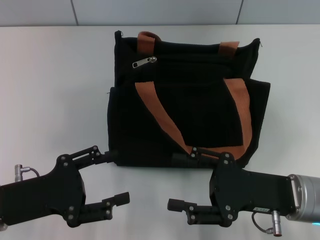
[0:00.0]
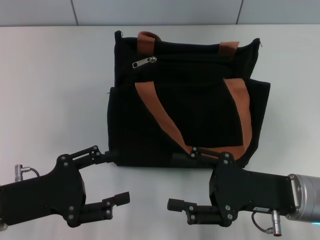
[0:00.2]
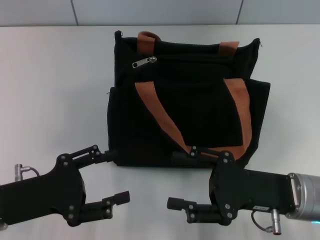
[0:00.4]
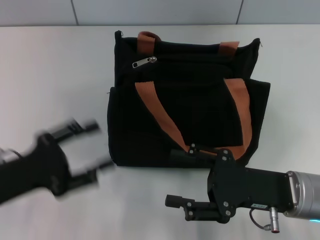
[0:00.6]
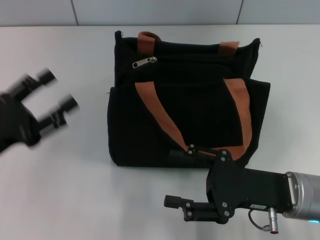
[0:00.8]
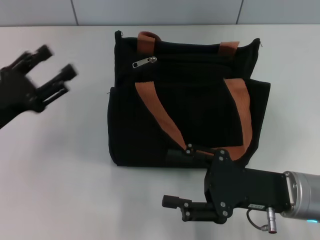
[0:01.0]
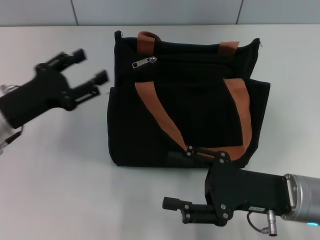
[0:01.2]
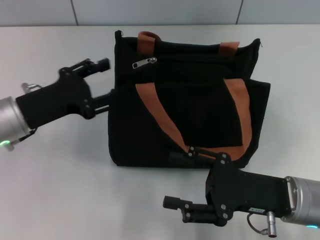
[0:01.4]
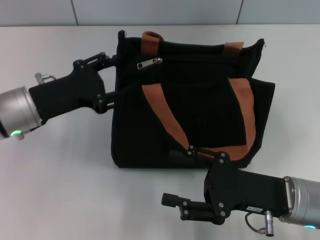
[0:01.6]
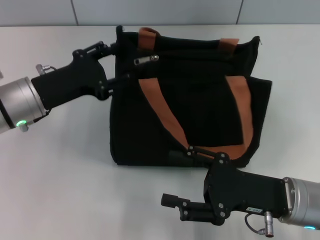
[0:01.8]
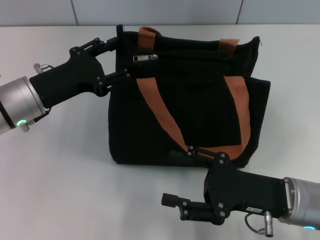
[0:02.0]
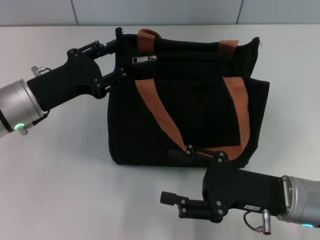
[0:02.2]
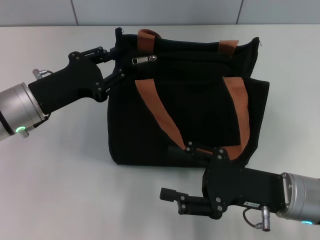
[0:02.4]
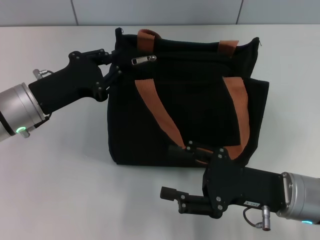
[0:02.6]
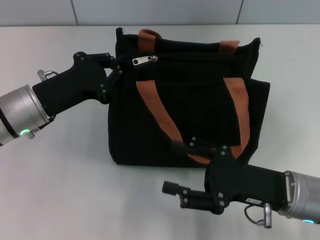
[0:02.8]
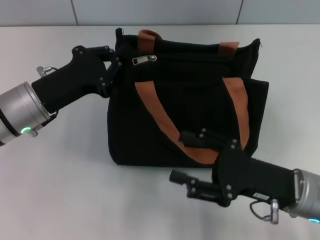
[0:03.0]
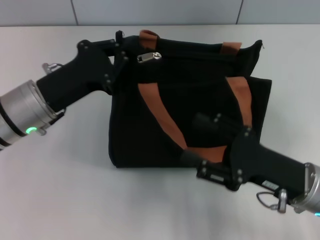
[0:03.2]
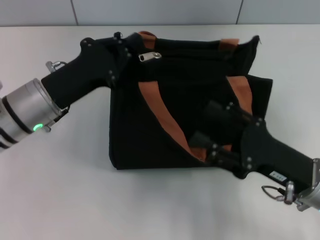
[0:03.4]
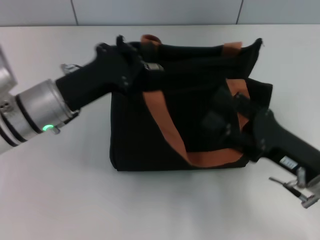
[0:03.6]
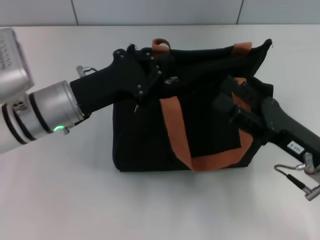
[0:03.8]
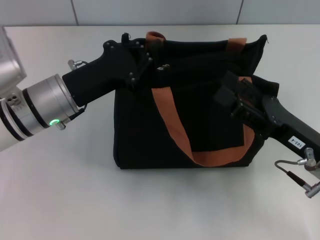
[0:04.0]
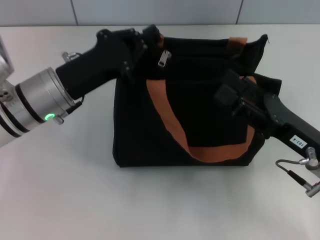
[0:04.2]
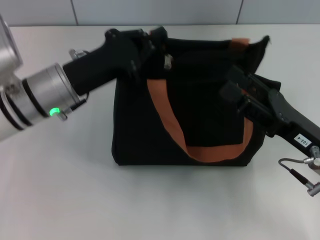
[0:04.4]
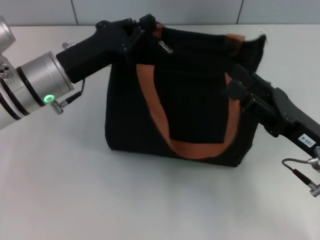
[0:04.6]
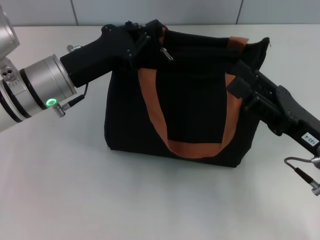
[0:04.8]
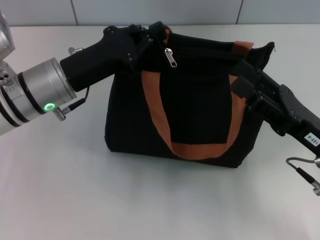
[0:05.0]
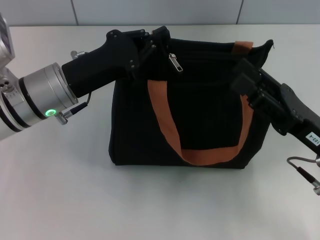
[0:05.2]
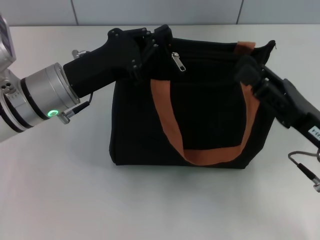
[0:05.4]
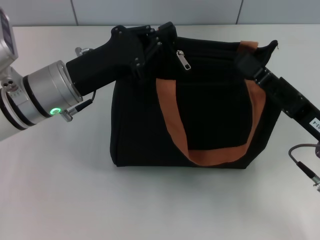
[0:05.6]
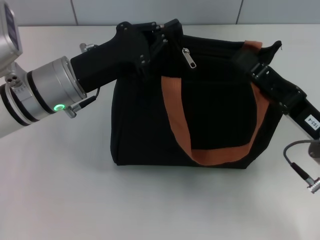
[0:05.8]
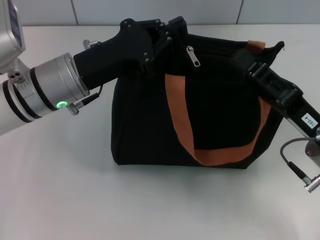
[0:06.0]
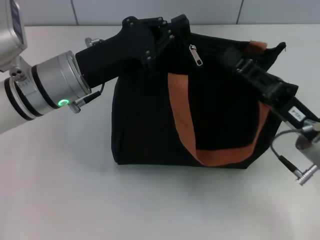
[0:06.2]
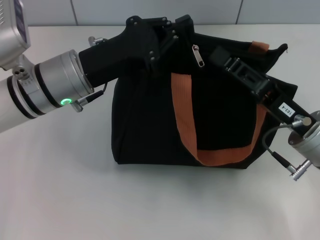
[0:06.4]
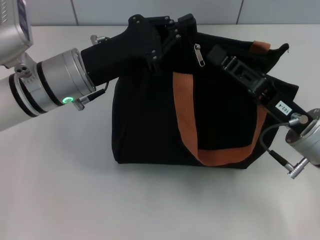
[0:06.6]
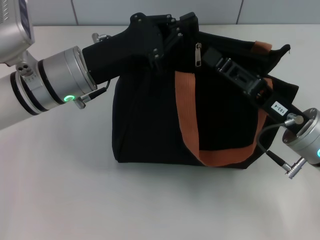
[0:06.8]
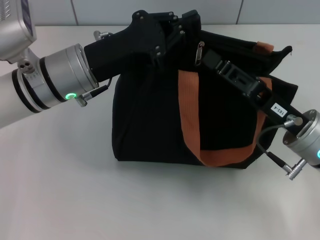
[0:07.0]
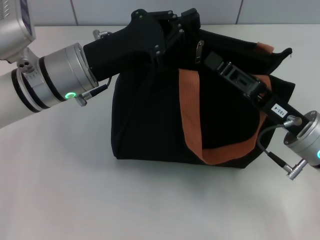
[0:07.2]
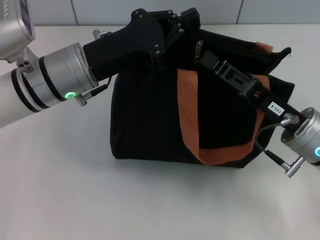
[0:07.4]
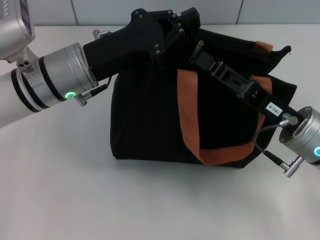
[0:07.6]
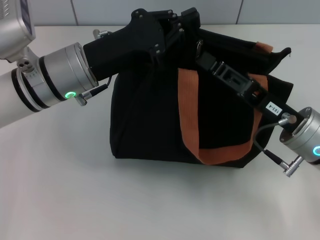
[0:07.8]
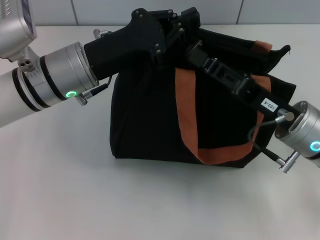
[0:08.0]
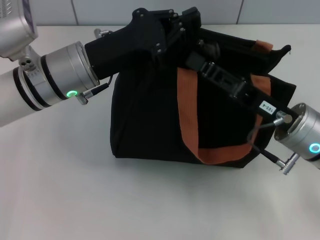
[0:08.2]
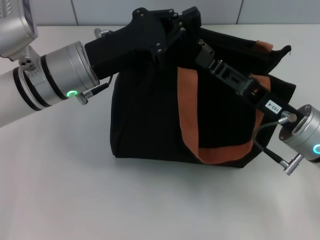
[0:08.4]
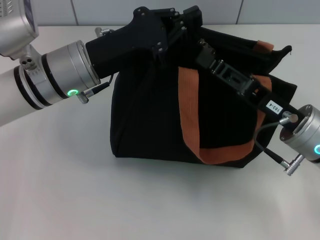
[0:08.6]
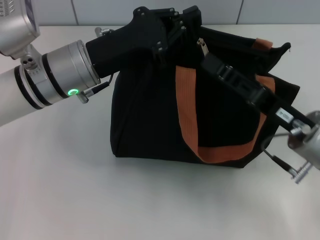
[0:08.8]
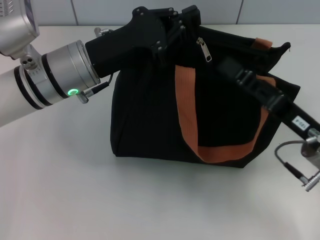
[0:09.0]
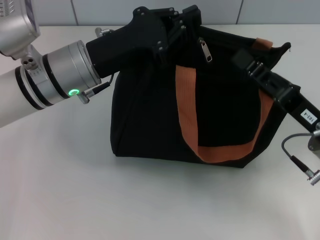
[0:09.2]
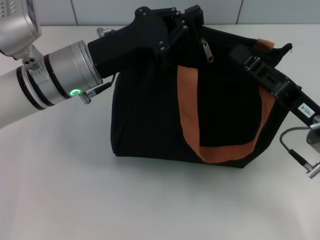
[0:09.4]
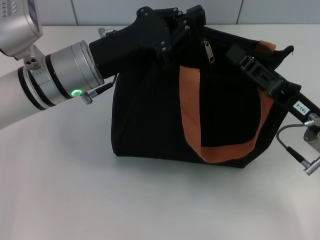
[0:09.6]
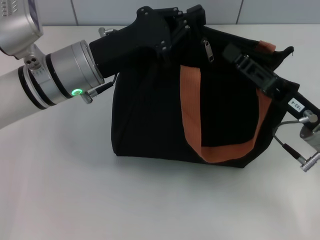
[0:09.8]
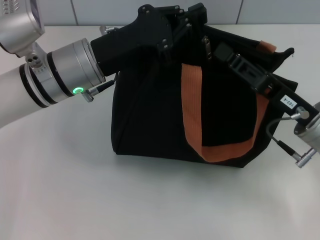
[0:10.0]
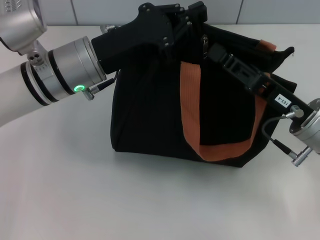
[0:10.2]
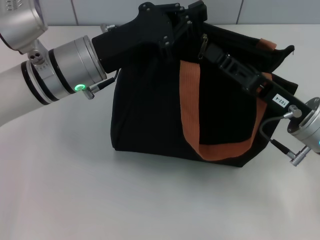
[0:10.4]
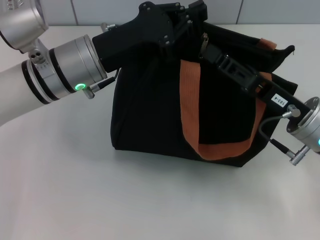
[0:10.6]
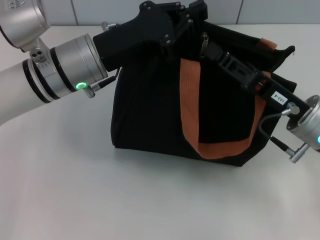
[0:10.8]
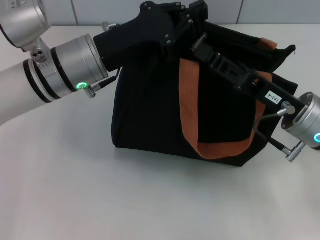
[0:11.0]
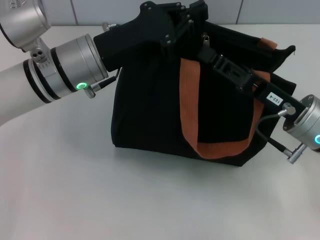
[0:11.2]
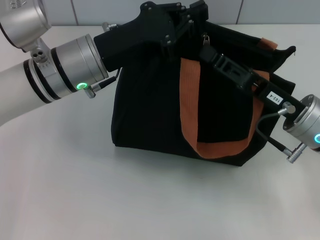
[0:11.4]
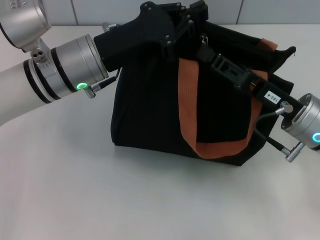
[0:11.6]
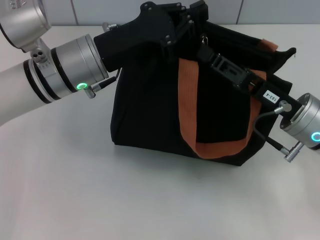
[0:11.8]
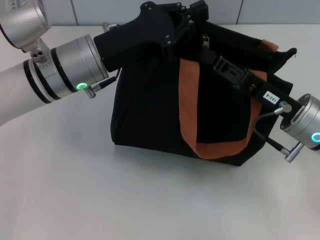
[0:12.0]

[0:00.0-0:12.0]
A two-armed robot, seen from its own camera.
0:00.0 to 0:01.6: The left gripper moves forward, about 10 cm.
0:01.6 to 0:03.0: The left gripper closes its fingers.
0:04.4 to 0:06.0: The right gripper closes up.
0:06.0 to 0:10.4: The grippers stay close to where they were, moving slightly.
0:10.4 to 0:12.0: Both grippers stay about where they are.

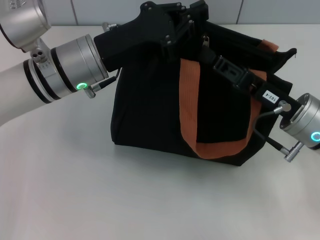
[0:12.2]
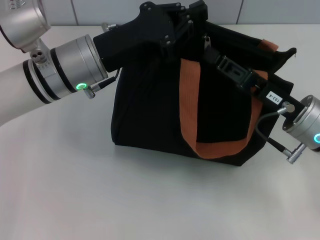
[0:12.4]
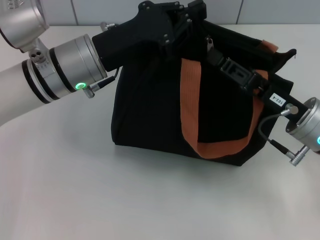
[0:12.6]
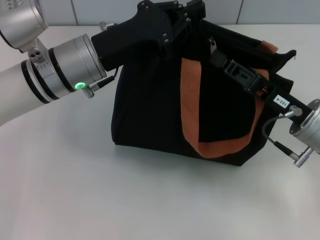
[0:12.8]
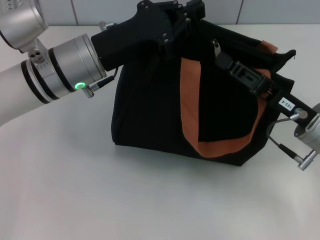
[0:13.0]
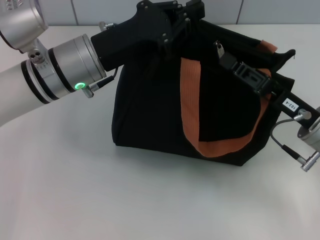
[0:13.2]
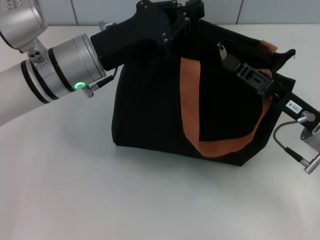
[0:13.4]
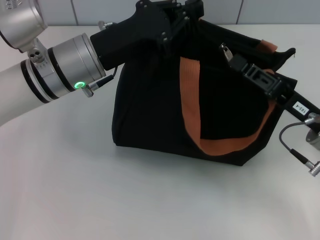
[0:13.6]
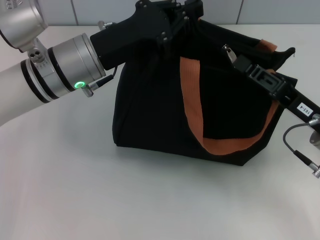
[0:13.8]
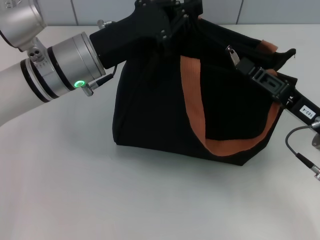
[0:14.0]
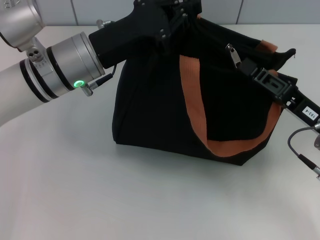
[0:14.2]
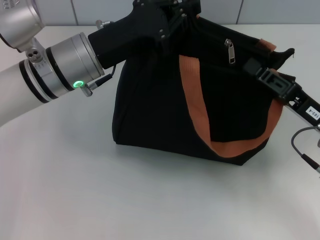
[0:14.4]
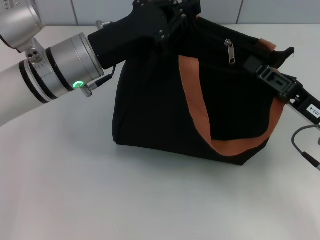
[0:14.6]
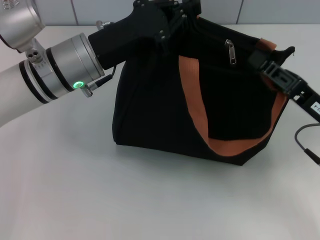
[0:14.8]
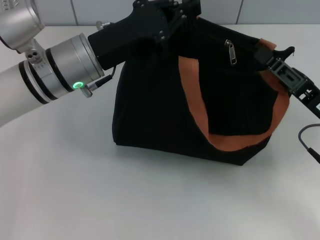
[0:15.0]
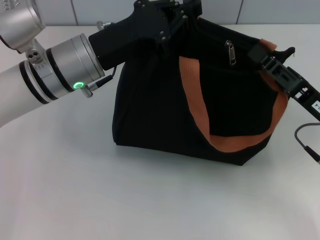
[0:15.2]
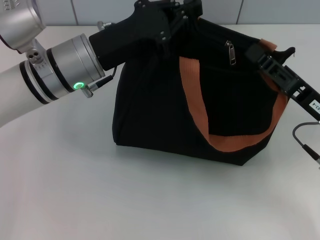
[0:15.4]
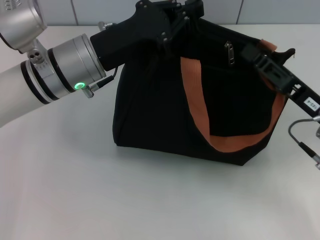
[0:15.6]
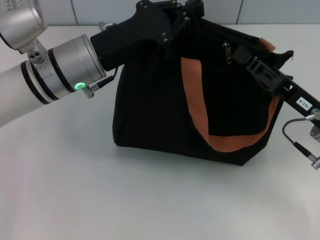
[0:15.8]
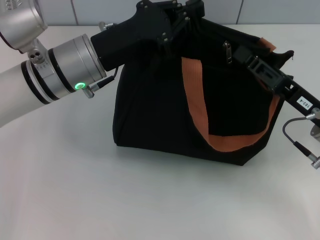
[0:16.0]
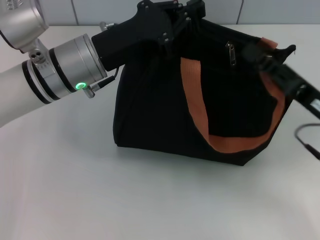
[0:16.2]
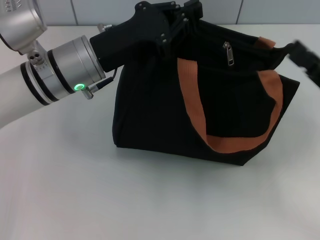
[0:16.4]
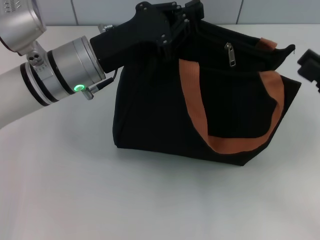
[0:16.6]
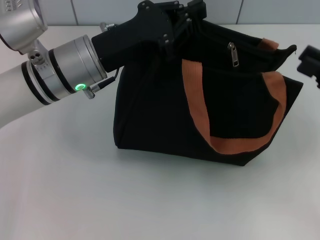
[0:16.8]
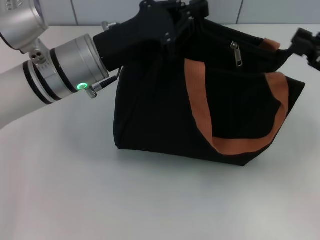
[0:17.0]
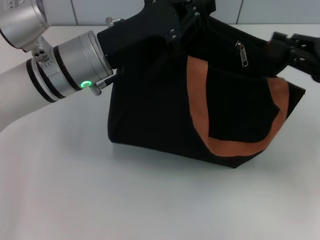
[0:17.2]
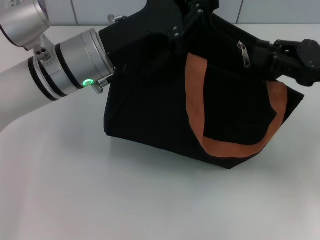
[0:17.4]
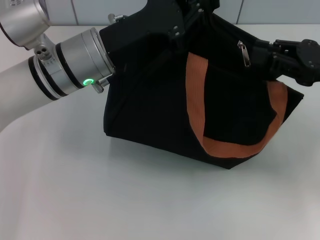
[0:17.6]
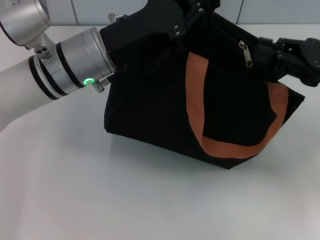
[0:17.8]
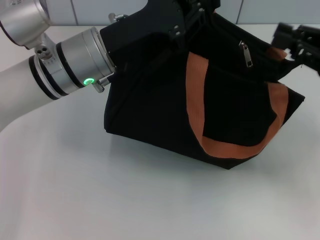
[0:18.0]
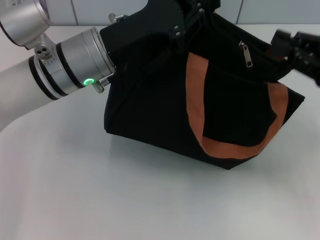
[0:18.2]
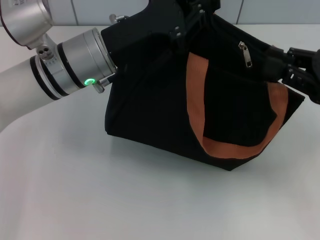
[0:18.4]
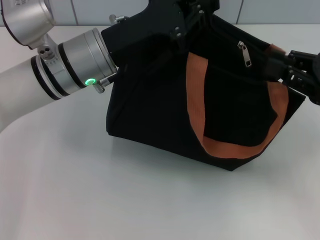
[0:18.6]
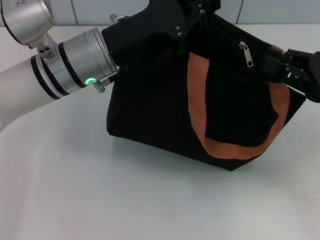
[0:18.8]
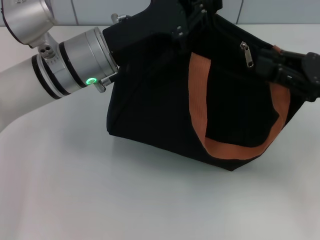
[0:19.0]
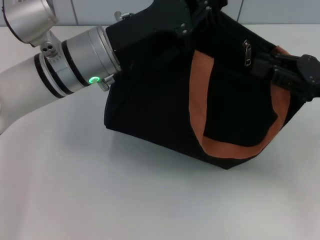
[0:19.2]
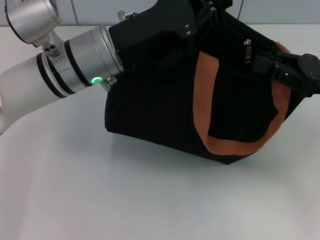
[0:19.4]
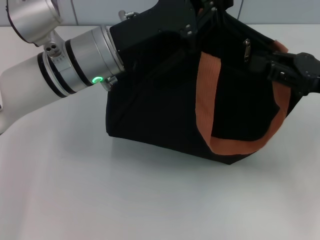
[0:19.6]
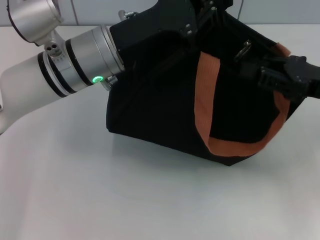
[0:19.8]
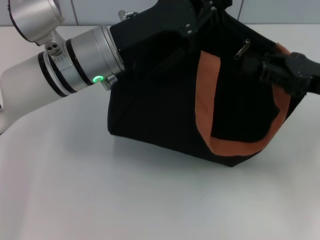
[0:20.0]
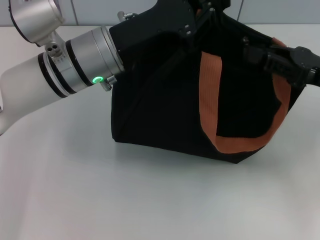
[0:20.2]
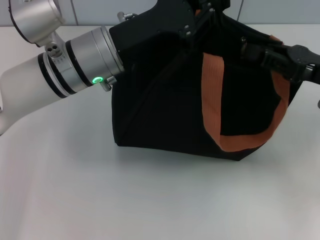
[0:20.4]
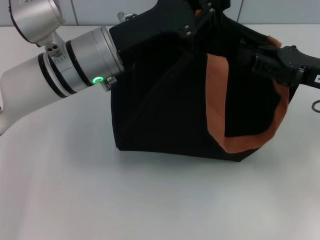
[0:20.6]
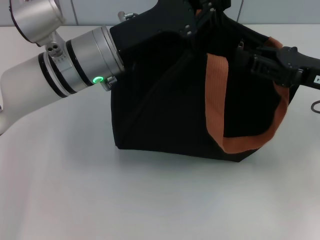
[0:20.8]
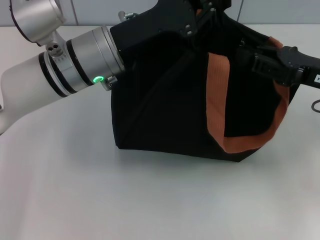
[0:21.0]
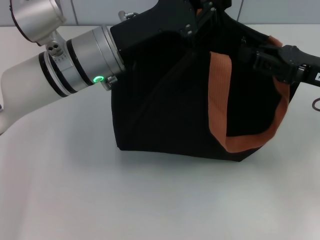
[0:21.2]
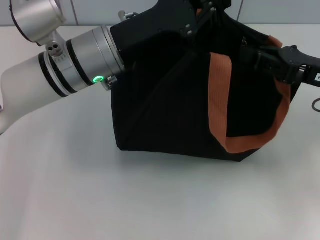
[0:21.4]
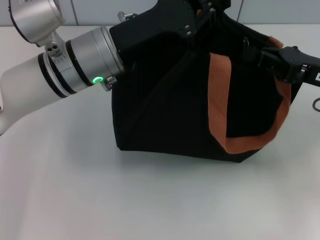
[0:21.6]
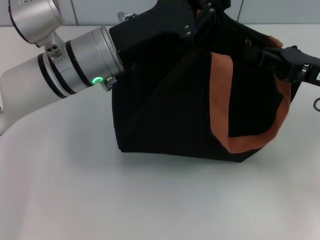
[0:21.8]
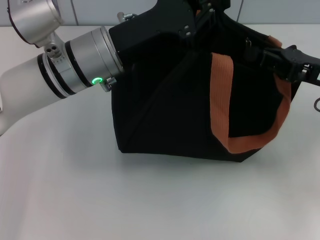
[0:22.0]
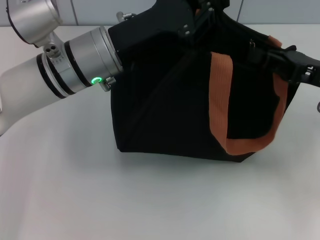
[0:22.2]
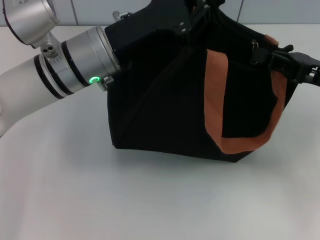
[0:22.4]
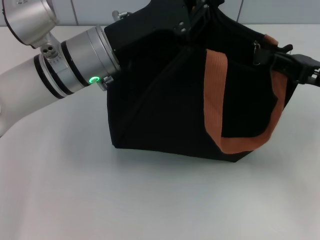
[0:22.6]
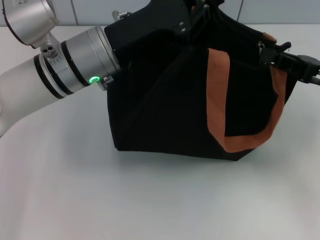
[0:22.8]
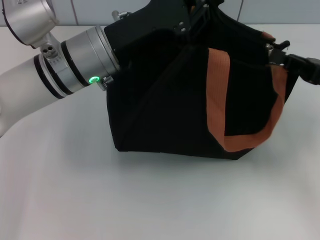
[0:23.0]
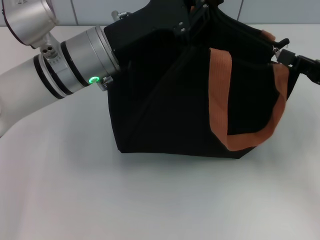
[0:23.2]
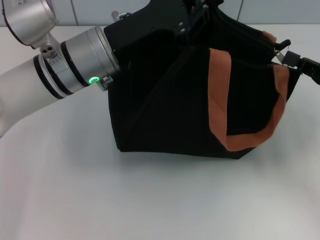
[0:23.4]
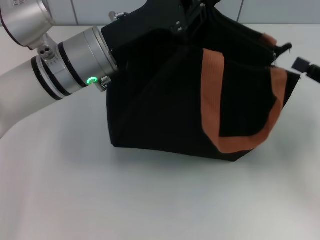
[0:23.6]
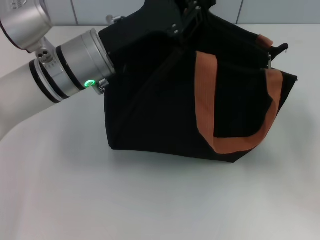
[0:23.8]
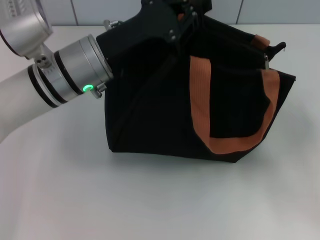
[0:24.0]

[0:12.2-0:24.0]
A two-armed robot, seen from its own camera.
Step, 0:12.2 to 0:23.6: Pull up the zipper with your right hand.
0:12.2 to 0:15.2: The grippers move only a little.
0:15.2 to 0:16.6: The right gripper heads to the right, covering about 5 cm.
0:16.6 to 0:18.2: The right gripper changes place by about 5 cm.
0:18.2 to 0:21.0: The grippers move only a little.
0:21.0 to 0:22.6: The grippers move only a little.
0:22.6 to 0:24.0: The right gripper moves backward and to the right, roughly 10 cm.
